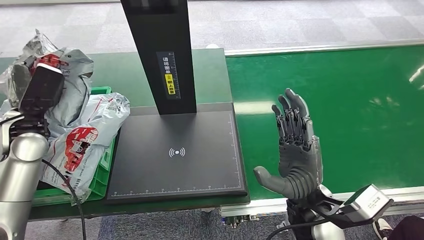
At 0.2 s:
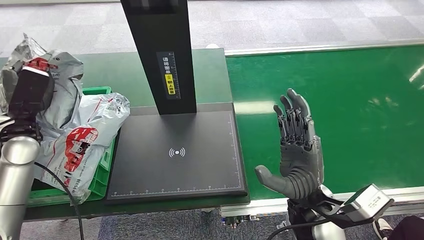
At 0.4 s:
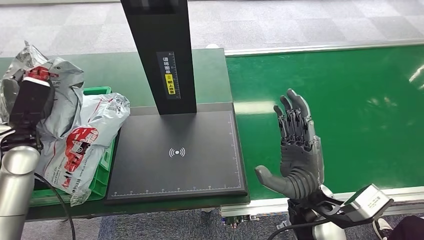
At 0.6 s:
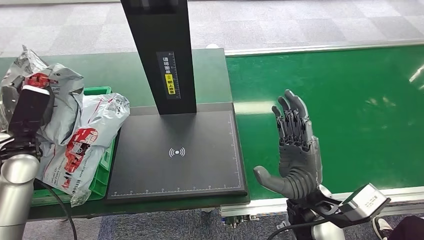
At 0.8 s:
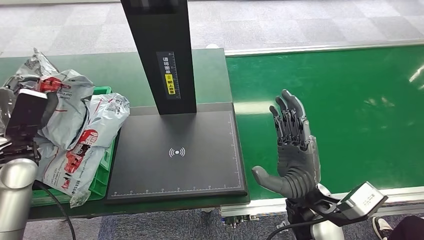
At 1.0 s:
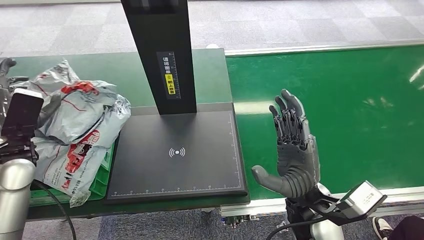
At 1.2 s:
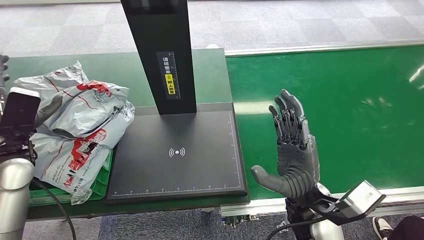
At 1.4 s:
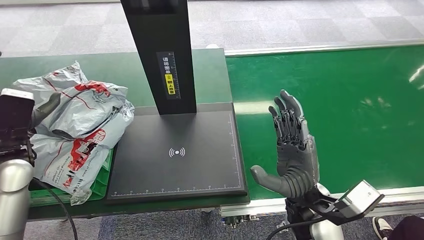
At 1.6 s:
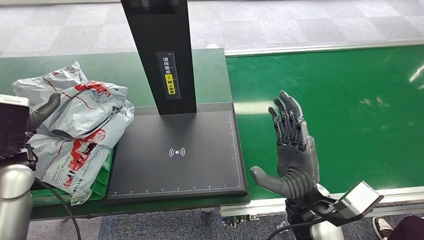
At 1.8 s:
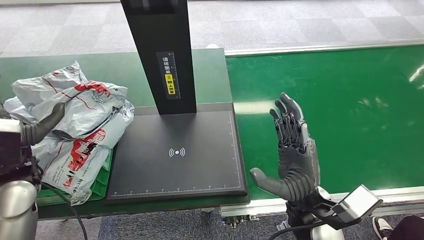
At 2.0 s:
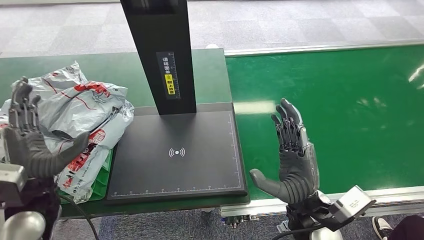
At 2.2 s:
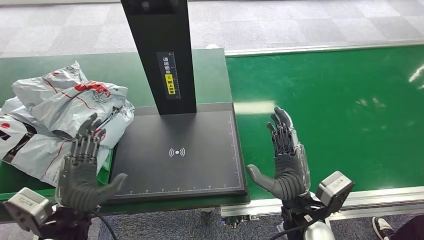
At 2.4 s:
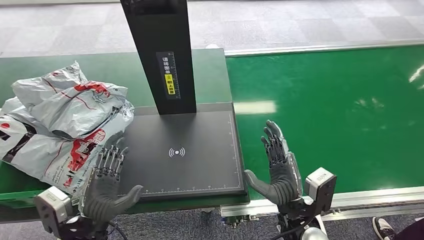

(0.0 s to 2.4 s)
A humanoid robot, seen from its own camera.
Task of the whole recording: Weigh the package on the weighing device and place it in the left basket.
Step, 0.0 s - 2.2 s: Place the package into the parcel locker.
0.0 s - 1.2 s: The left hand moves backward, approximately 5 cm.
1.2 s - 2.4 s: The right hand is displaced downward by roughly 5 cm; the left hand is displaced to the right, backward and downward by about 25 cm.
